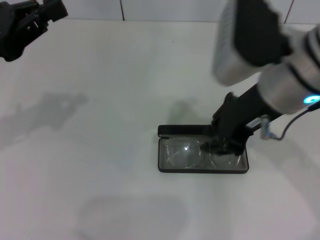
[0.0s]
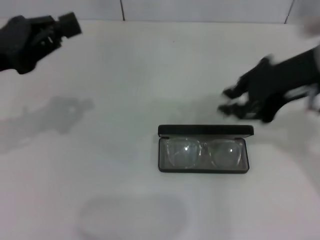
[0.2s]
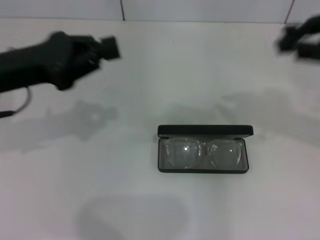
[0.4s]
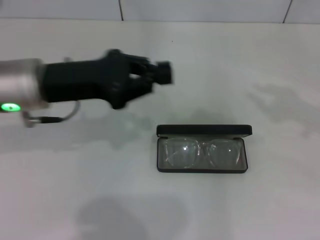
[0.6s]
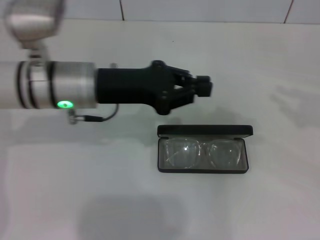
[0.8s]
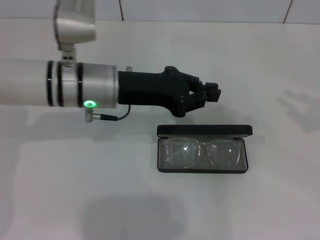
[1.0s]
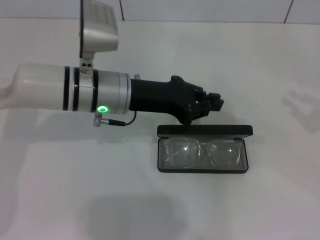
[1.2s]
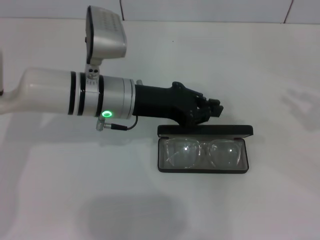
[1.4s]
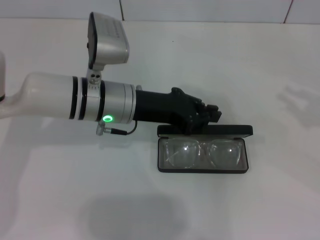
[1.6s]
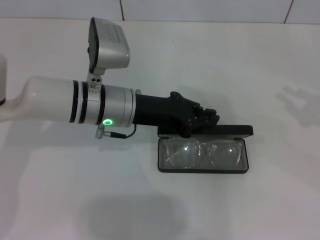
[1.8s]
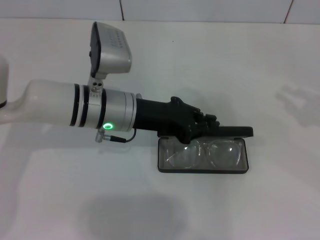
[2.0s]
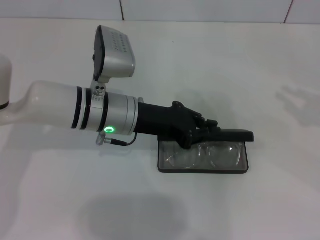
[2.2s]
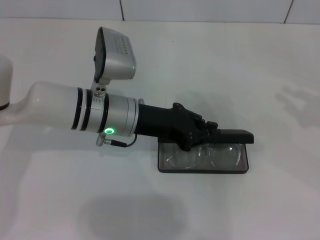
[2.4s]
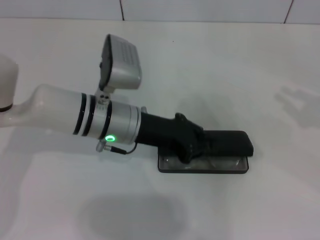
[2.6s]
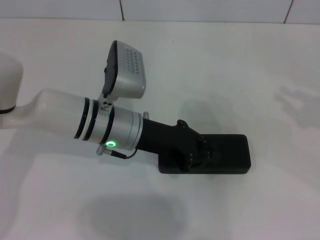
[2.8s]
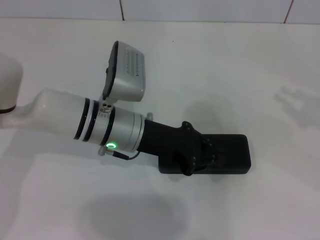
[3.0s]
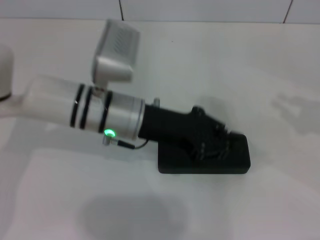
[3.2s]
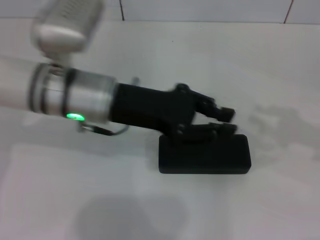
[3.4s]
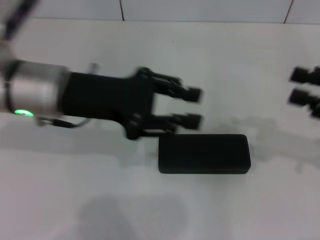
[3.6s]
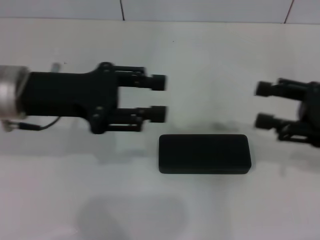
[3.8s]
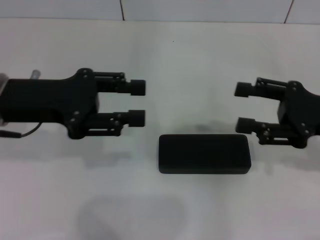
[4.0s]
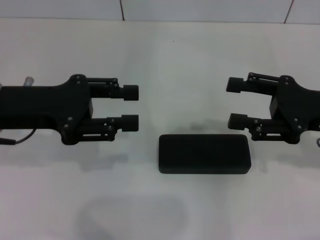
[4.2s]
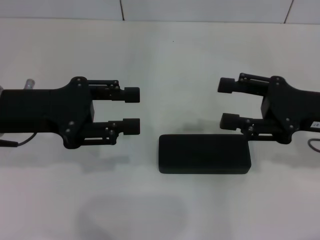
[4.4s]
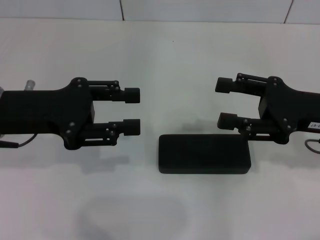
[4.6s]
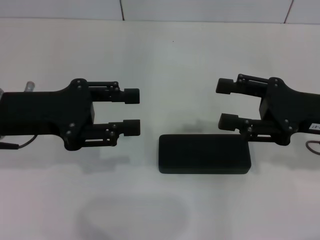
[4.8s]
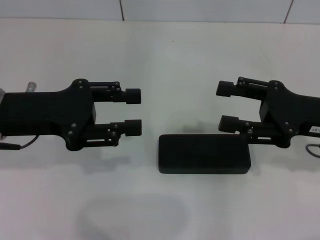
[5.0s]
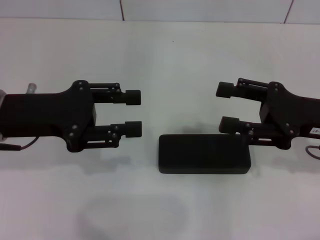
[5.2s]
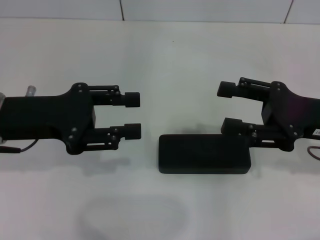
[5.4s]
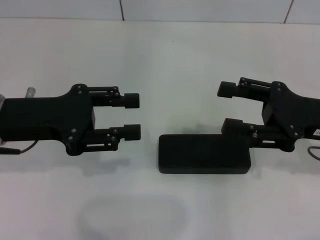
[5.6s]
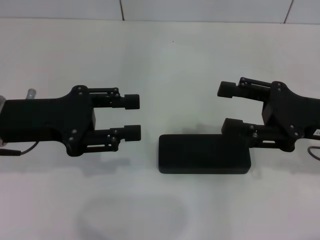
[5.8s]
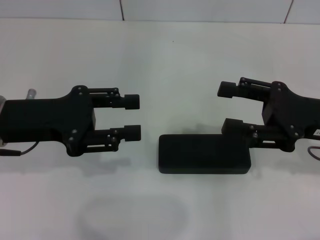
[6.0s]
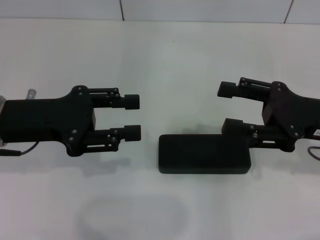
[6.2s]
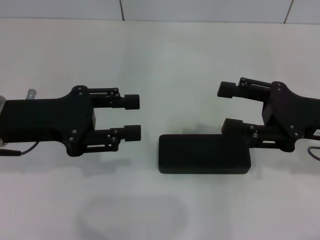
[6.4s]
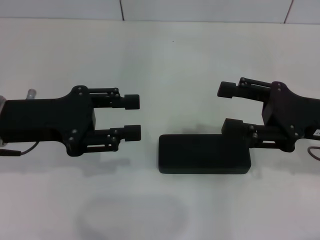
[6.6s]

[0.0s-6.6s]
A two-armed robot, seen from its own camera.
Step, 0.0s to 2.6s: Close the glasses case with your left hand.
0.0s to 1.6s: The right gripper goes roughly 30 cm to the right, while the left gripper goes approximately 20 cm to the right and downward.
1.6s to 3.2s: The grippers make only small movements.
3.2s to 5.0s: Both grippers move to the left, approximately 15 cm. The right gripper opens up; the left gripper opens up.
5.0s to 6.6s: Both grippers stay about where they are.

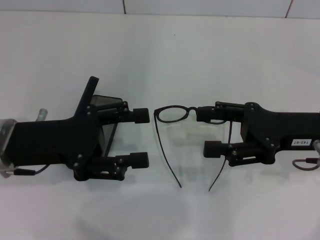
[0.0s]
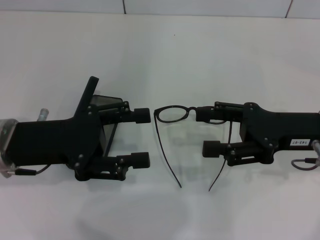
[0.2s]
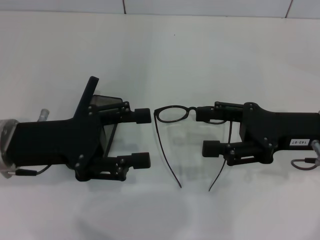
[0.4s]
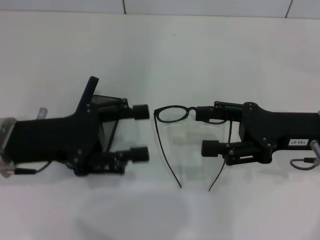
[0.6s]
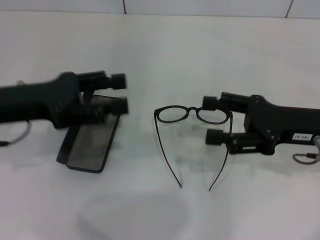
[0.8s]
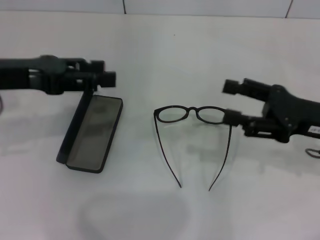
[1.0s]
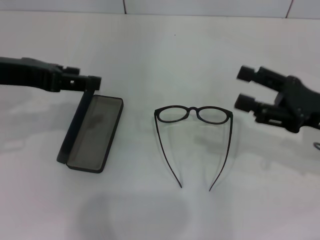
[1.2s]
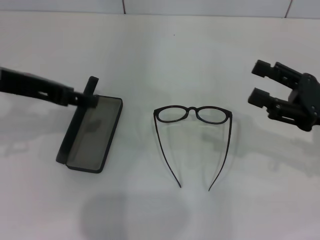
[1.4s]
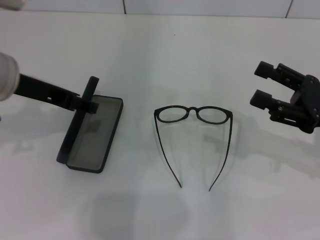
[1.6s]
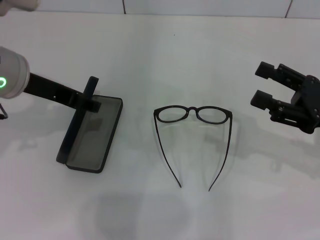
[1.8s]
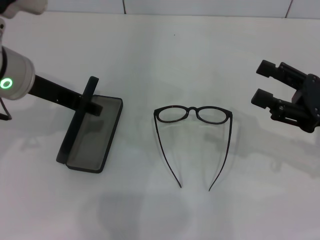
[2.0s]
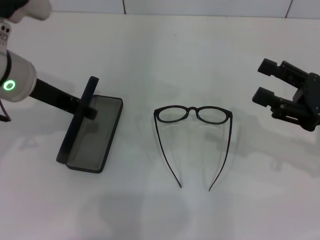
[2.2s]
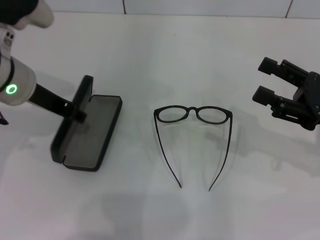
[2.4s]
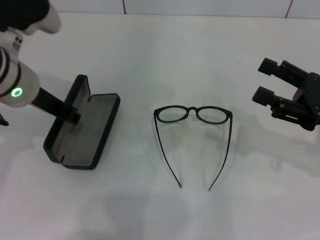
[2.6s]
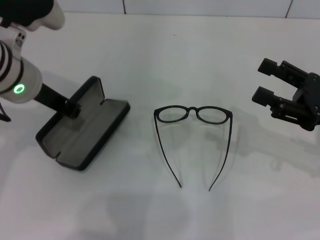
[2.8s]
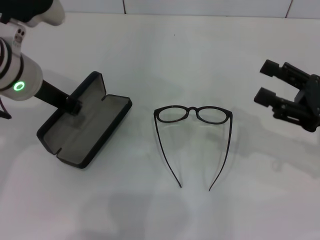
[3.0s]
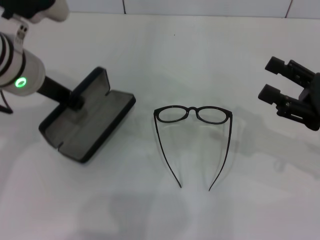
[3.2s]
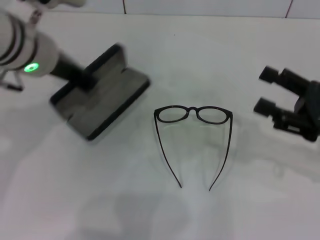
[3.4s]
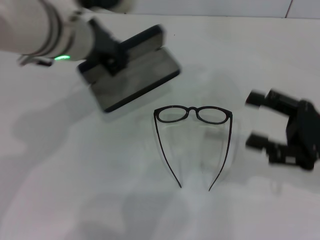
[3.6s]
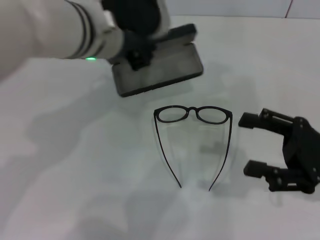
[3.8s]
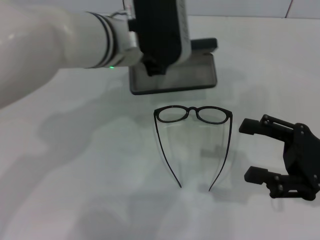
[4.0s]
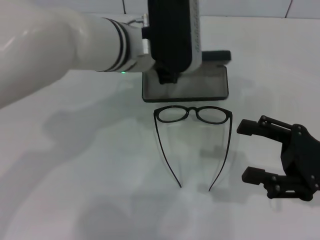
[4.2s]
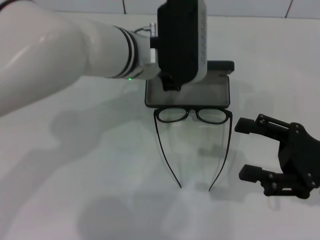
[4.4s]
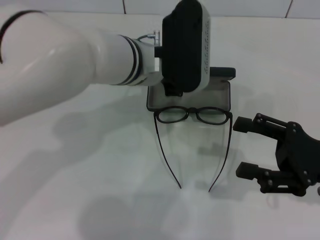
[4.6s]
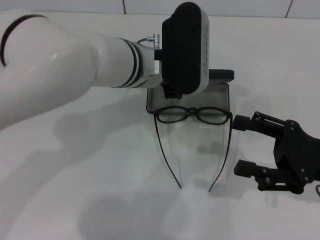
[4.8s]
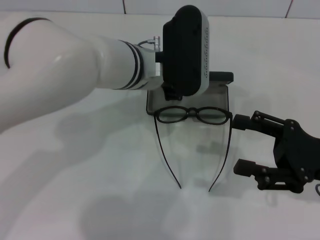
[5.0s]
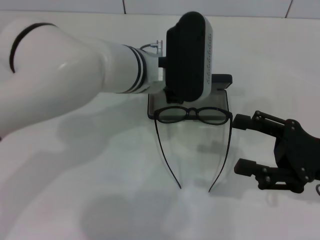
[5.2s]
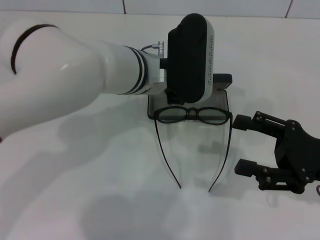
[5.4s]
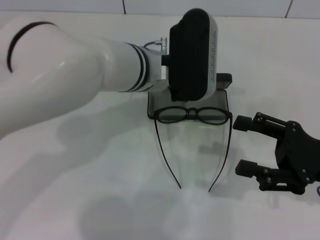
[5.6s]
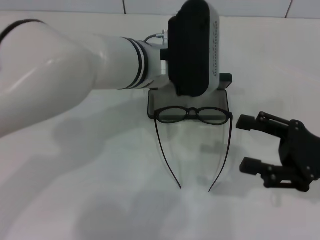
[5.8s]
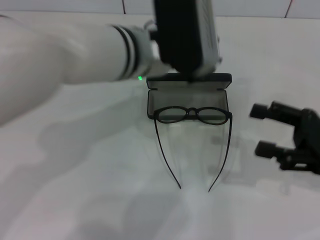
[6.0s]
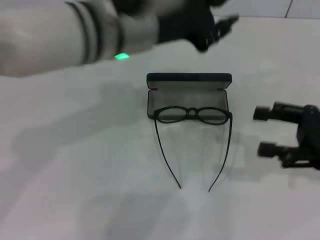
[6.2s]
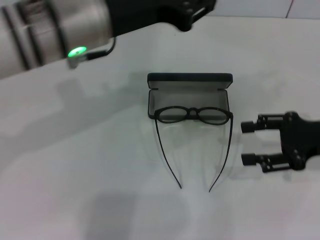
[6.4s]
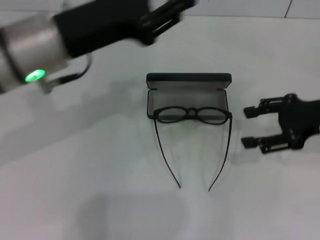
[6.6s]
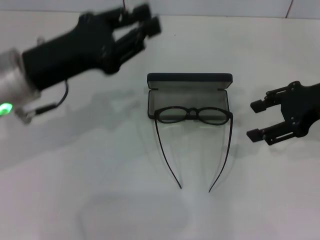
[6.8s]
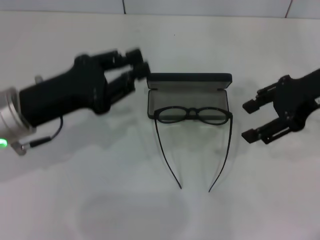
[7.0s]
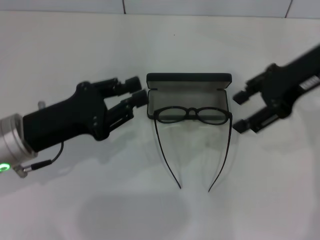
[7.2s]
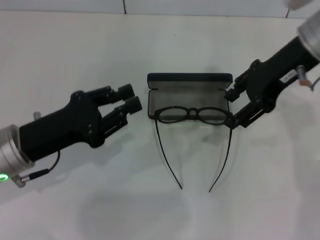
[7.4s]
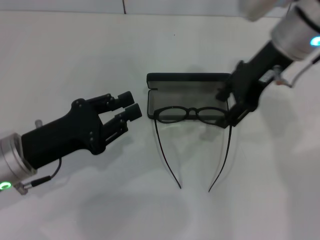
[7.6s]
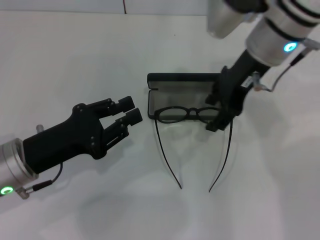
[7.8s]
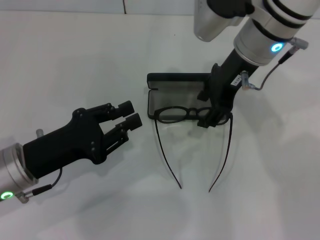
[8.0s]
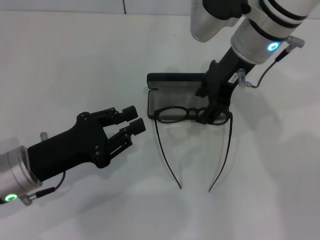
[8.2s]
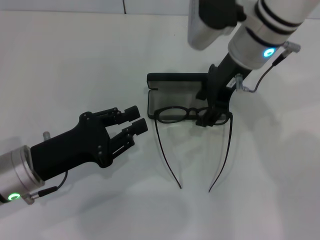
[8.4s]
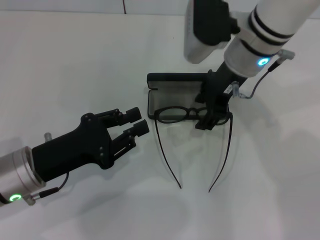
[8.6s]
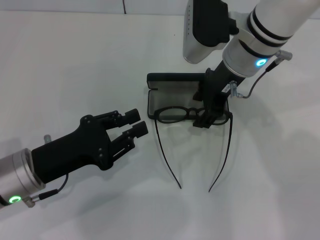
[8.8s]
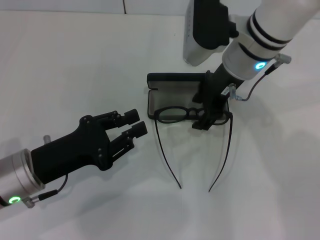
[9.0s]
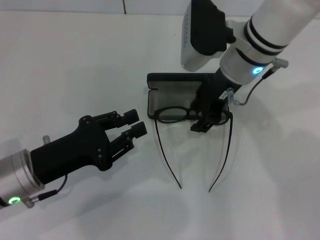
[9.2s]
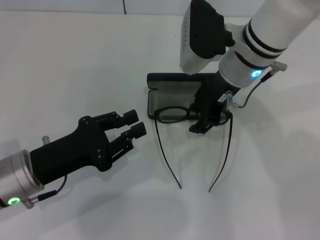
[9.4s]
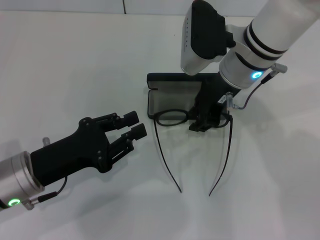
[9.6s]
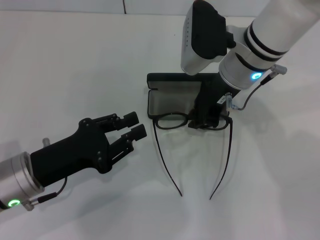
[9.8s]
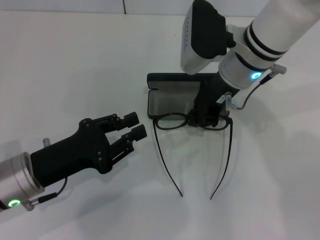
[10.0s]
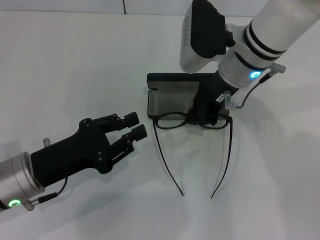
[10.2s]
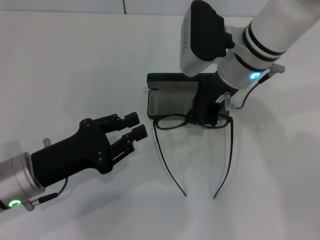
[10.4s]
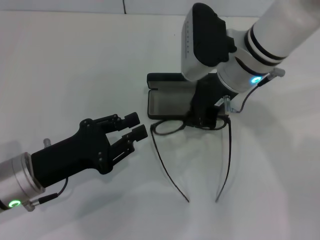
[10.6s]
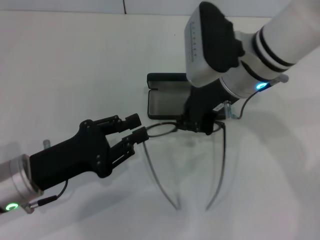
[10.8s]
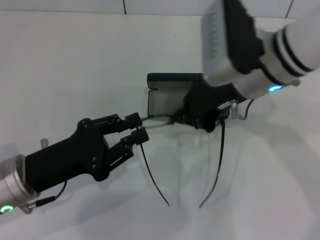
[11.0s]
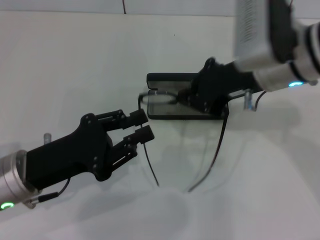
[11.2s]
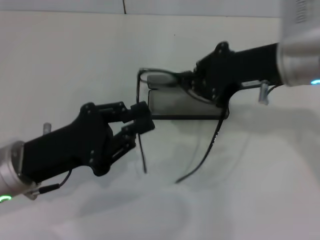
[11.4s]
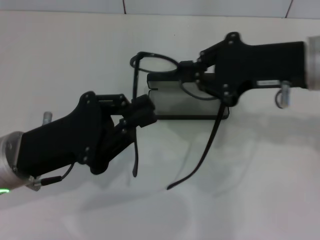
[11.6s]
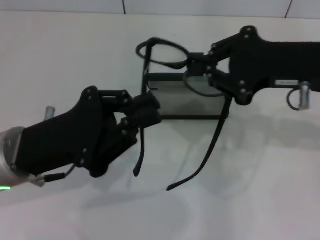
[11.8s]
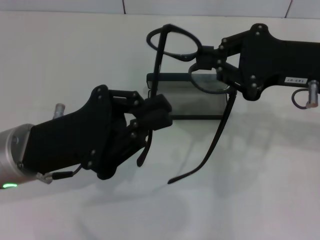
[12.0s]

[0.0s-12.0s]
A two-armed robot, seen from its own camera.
Step, 0.0s to 2.4s: Grab the glasses case with your left hand.
Step, 2.6s to 5.6s: Place the glasses case in the center of the table with your left hand.
Step, 5.8s to 10.4s: Grab the eyeglass frame with your right hand.
0.0s to 1.6s: The right gripper goes roughly 5 cm to the right; the left gripper is displaced upward and forward by some 10 cm.
1.6s to 3.0s: The left gripper closes up.
3.0s to 4.4s: The left gripper goes roughly 15 cm to the right.
4.4s to 6.0s: There are only small adjustments of the grippers.
6.0s to 7.6s: The right gripper moves to the left, forward and upward, some 25 cm. The left gripper is displaced to the left, downward and backward by about 25 cm.
7.6s to 9.0s: The right gripper goes roughly 10 cm to the left and downward.
9.0s to 10.4s: The right gripper closes.
10.4s to 12.0s: The left gripper moves upward, roughly 5 cm, while the right gripper shifts roughly 15 cm to the right and backward.

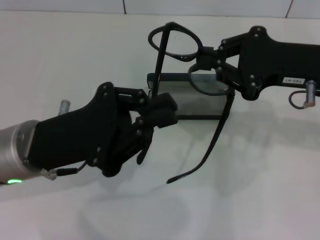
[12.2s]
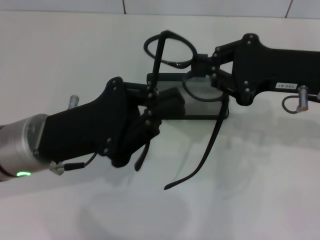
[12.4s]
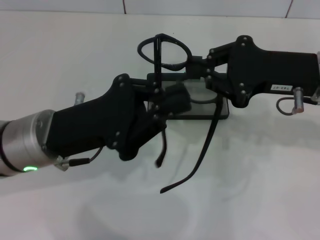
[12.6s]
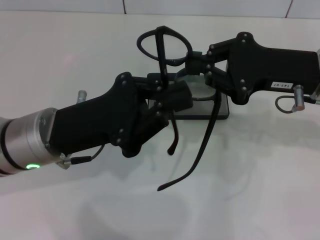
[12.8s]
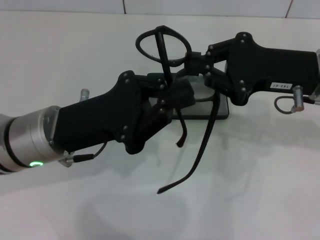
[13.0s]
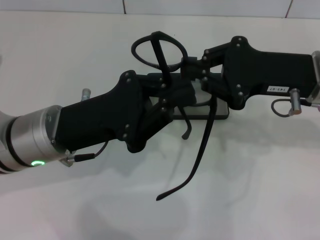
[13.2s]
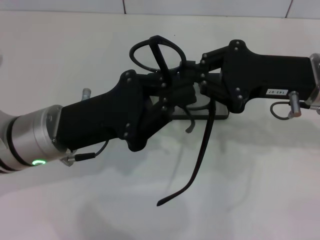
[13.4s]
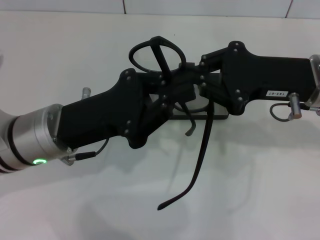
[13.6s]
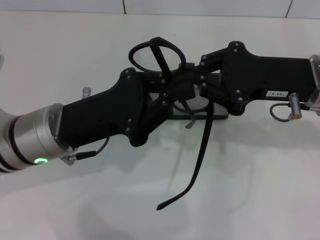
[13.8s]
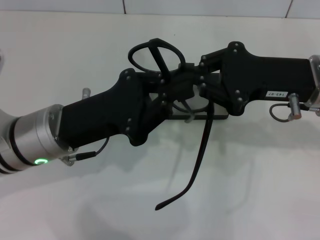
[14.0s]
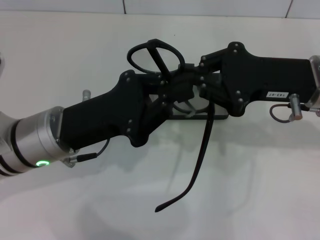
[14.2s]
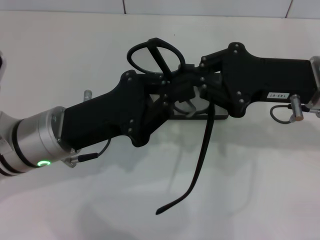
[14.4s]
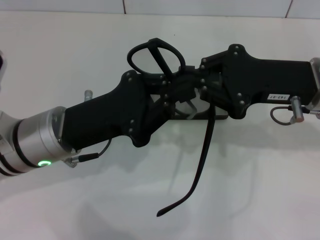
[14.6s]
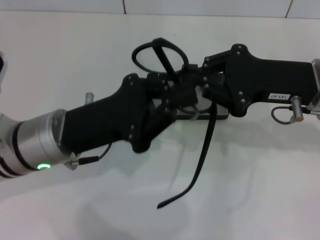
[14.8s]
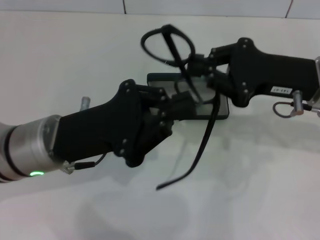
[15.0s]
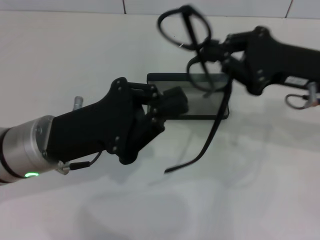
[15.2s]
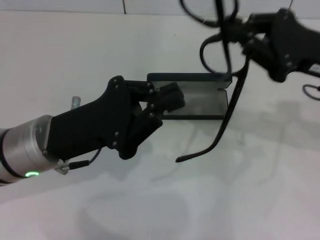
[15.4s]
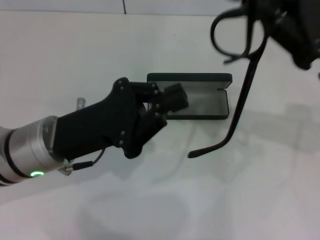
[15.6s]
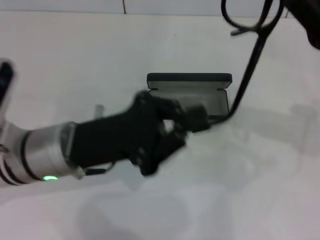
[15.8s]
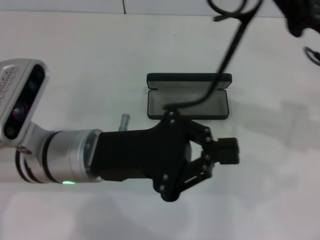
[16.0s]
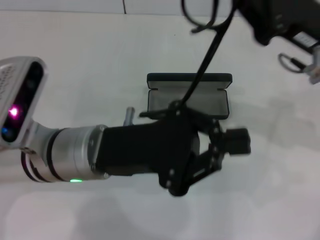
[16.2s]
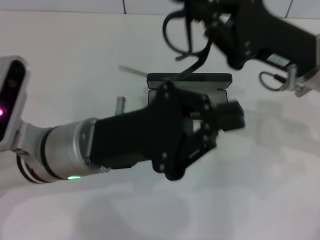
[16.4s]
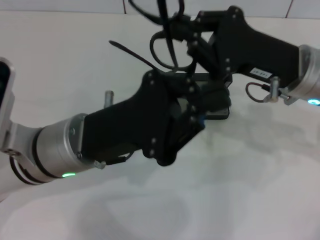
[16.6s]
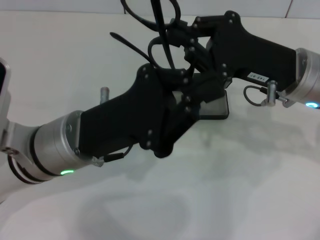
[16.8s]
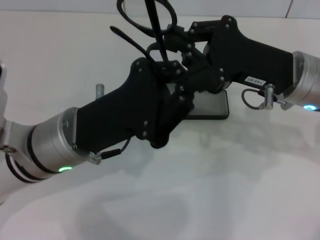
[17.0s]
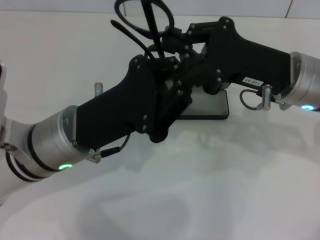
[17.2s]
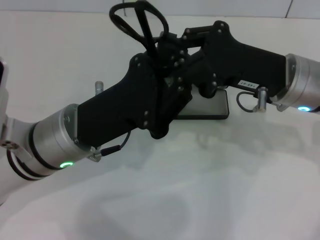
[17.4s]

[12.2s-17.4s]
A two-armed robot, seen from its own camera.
14.0s to 15.6s: The right gripper ends up roughly 5 cm from where it was.
15.6s to 17.4s: The right gripper heads to the left, covering some 10 cm.
